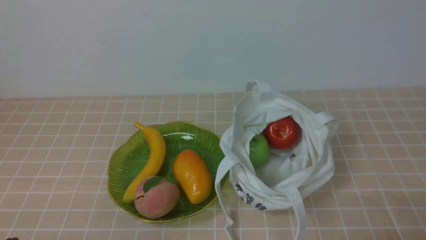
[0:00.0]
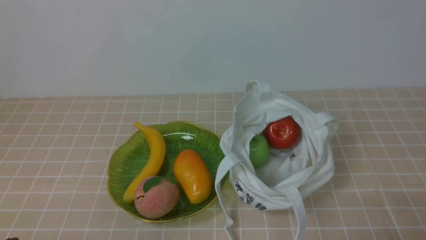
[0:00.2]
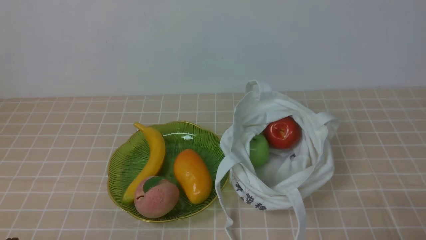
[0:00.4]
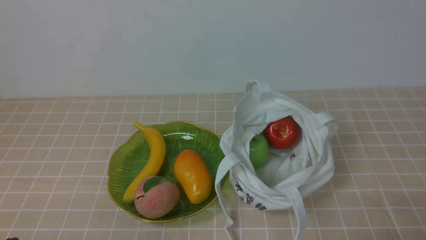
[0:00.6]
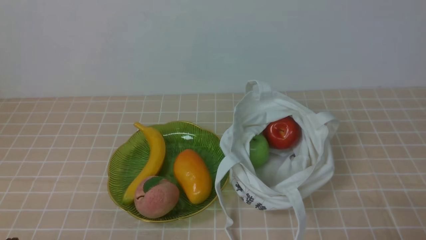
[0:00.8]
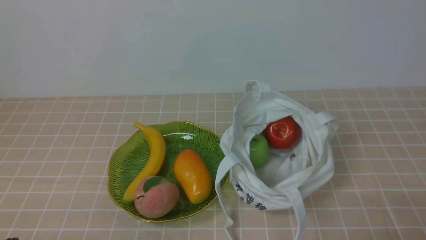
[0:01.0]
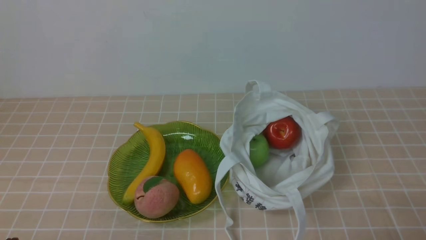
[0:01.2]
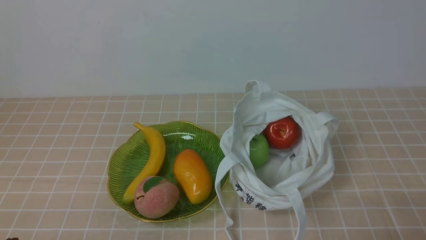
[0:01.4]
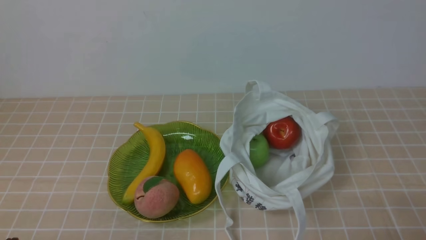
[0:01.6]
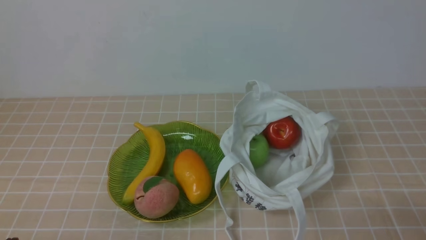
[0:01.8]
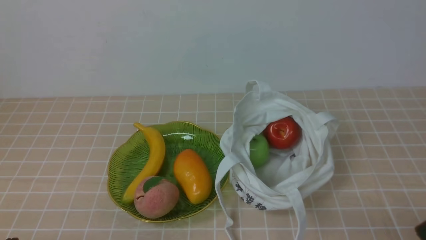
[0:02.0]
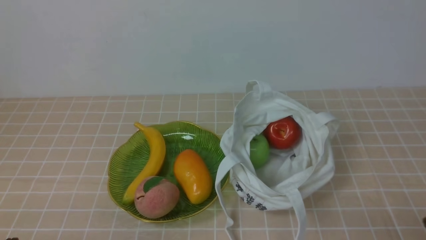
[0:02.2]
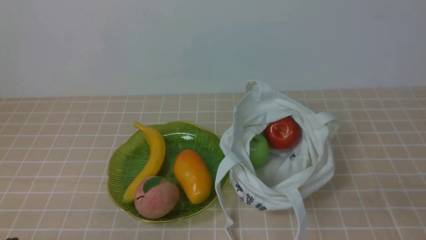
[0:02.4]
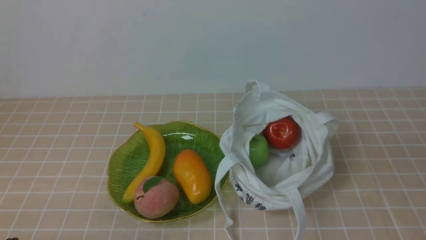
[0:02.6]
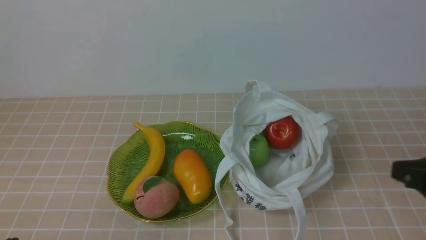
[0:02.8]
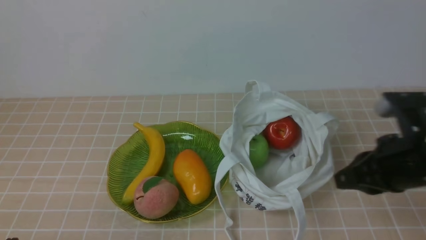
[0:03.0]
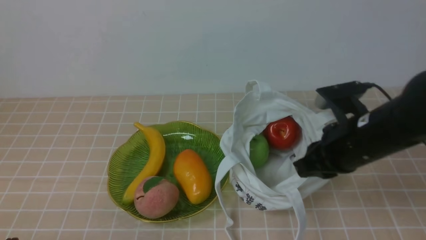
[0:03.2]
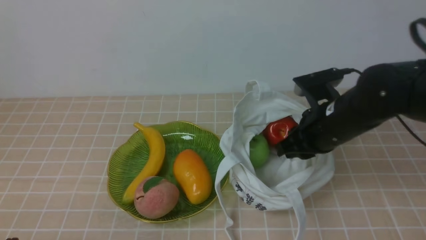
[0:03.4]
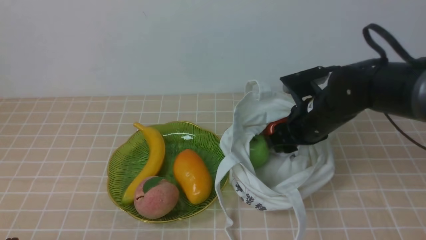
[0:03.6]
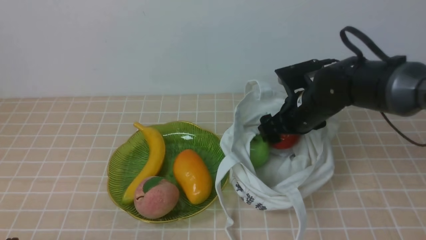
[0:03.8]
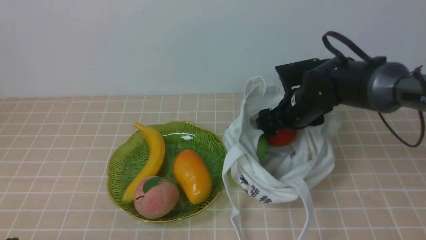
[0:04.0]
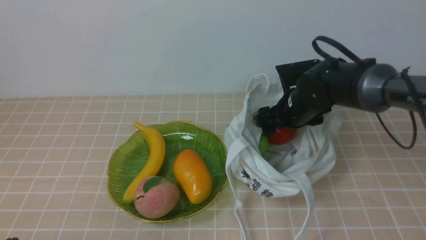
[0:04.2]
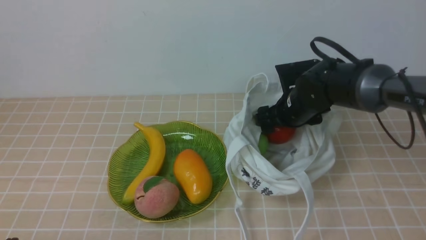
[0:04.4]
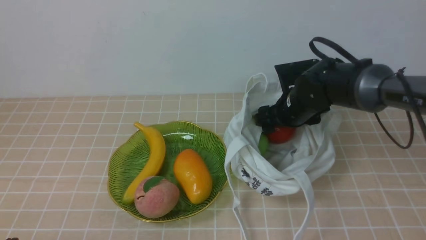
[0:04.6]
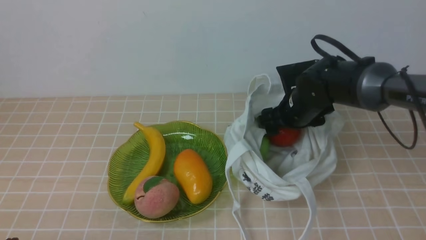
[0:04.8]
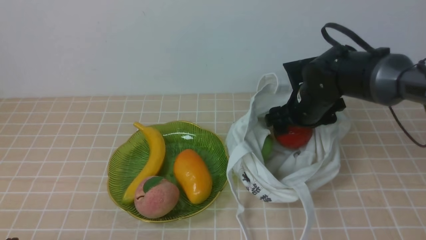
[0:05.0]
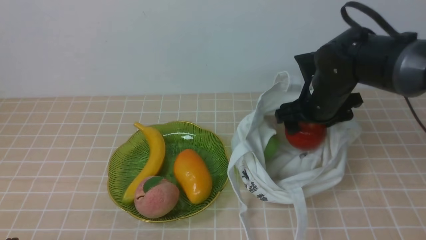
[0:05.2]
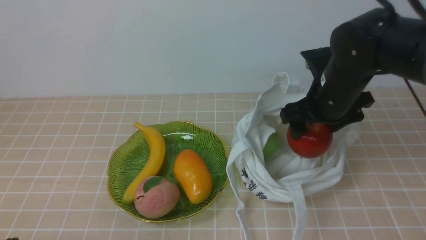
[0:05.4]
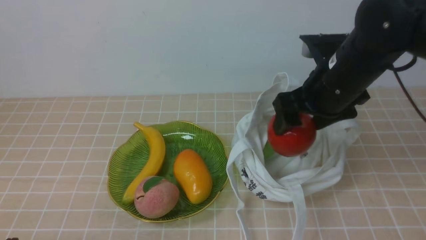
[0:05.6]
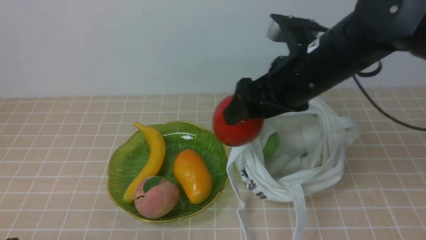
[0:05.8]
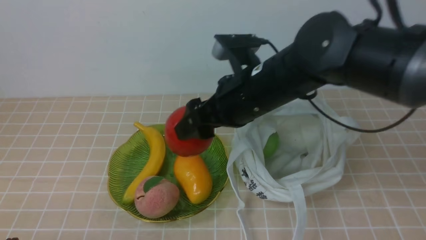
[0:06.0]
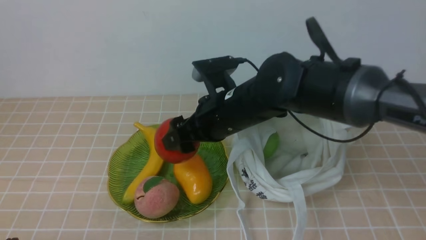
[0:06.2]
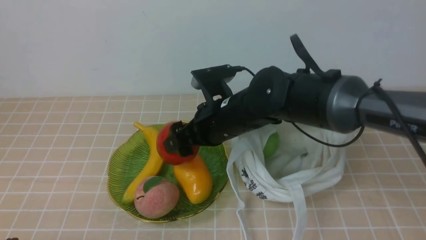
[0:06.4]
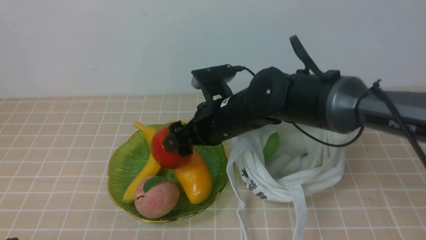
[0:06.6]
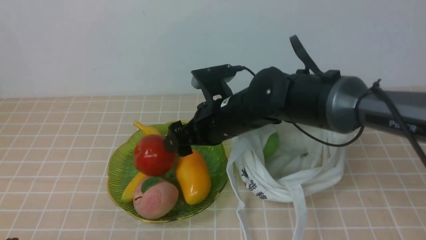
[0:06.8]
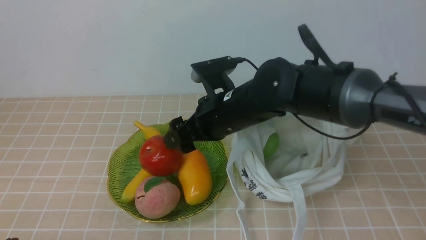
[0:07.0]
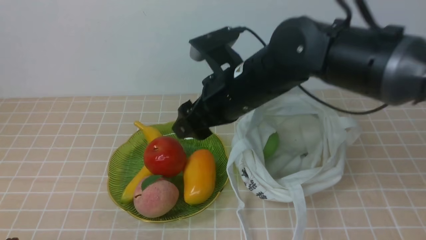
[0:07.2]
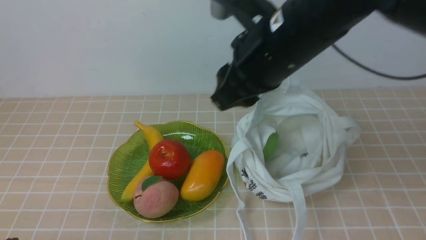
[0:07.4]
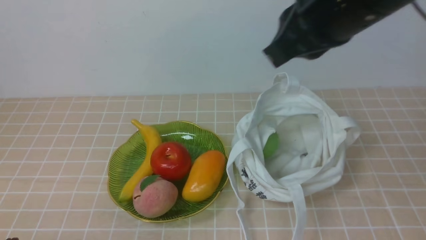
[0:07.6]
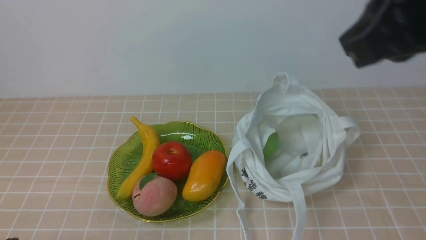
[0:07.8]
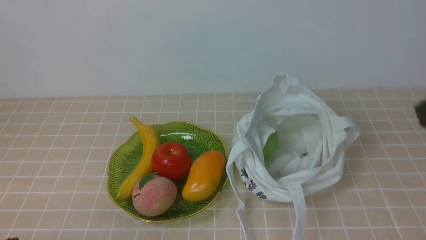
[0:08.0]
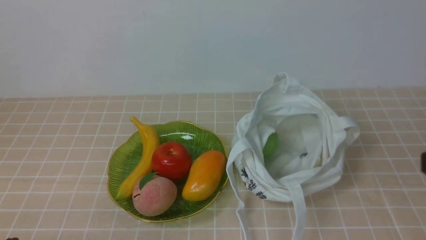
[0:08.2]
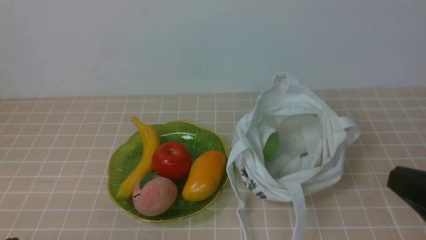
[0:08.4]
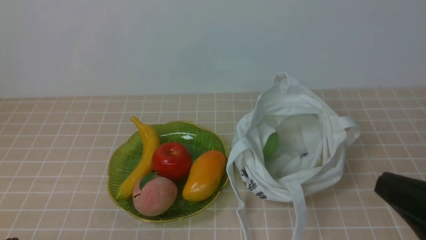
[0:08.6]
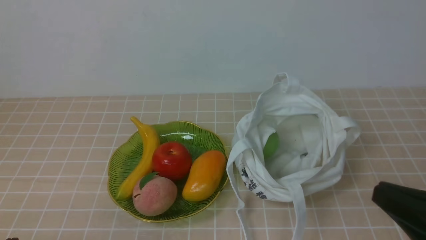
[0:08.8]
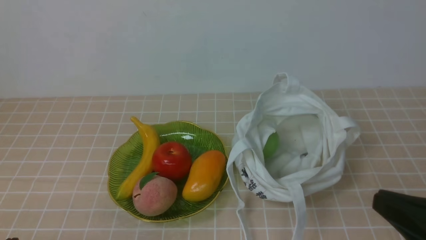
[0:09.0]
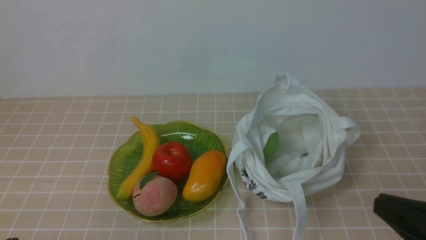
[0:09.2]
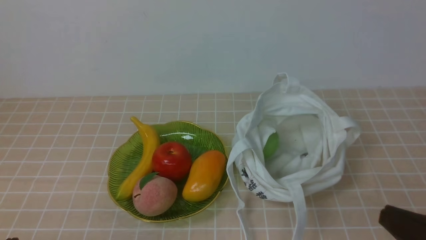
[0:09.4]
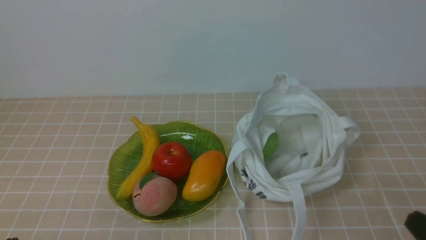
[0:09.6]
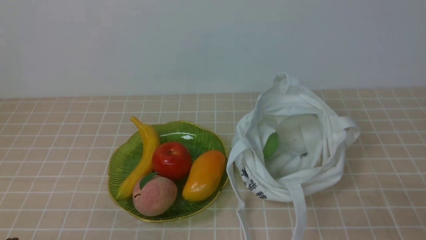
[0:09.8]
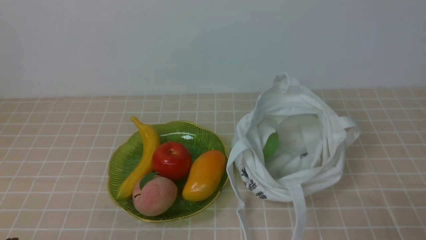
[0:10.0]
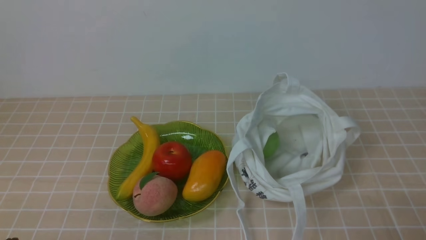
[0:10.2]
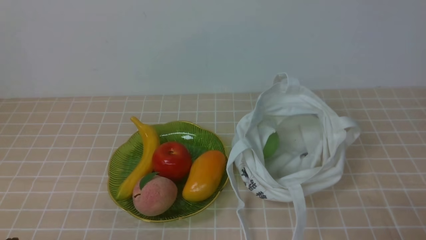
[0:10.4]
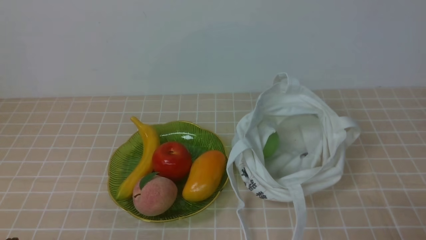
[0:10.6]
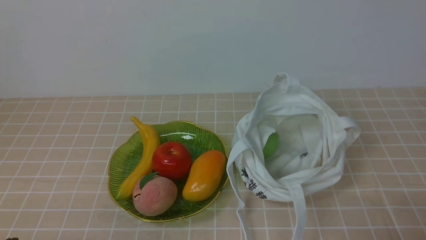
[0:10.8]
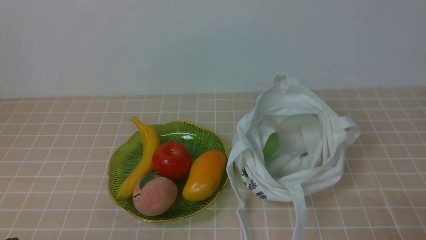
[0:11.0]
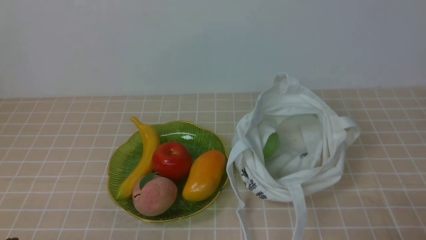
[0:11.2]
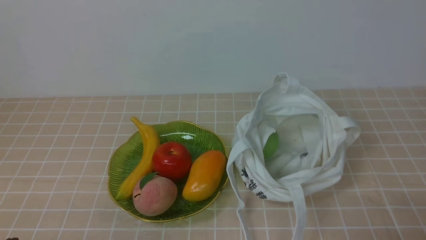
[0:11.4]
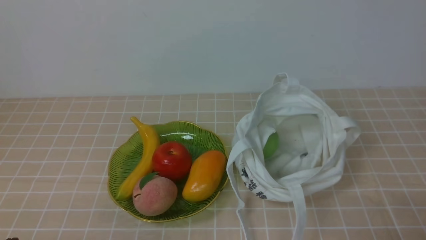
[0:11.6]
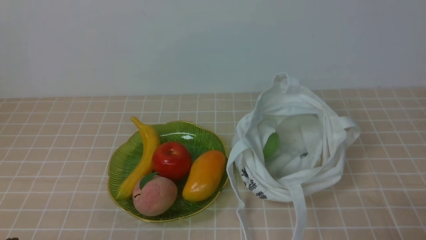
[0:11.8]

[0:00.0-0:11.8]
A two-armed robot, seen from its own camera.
Step, 0.0 to 5.4 s: use the right arm to grab an apple from the bag.
Step, 5.8 to 6.8 s: use the right arm to put the apple into the empty plate on the left.
1.4 to 3.0 s: The right gripper shifts some 20 cm forward, upward and to the left.
3.0 to 4.4 s: The right gripper moves forward, downward and to the left, roughly 25 cm, and opens.
4.4 to 6.0 s: The right gripper travels upward, backward and to the left by about 15 cm.
6.0 to 7.4 s: The right gripper heads upward, covering about 5 cm, and closes its fingers.
7.4 to 8.8 s: The right gripper goes roughly 30 cm backward and to the right, and closes.
8.8 to 10.4 s: The right gripper heads downward and to the right, covering about 10 cm.
10.4 to 11.8 s: Both grippers stay about where they are.

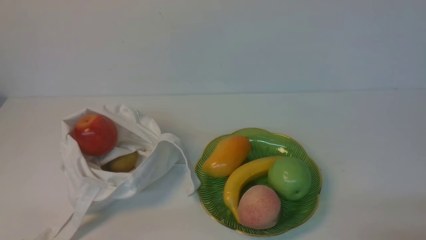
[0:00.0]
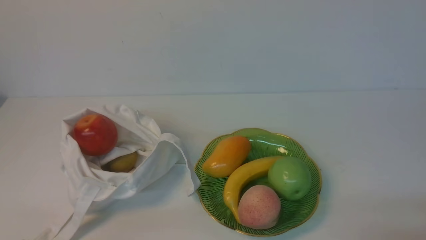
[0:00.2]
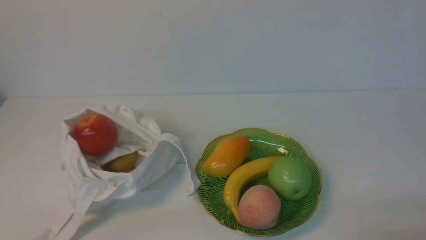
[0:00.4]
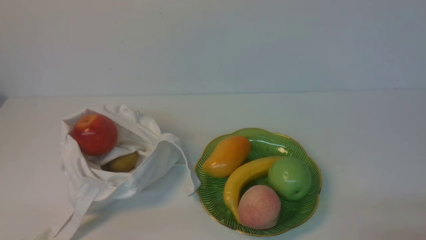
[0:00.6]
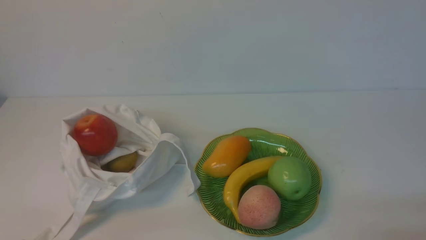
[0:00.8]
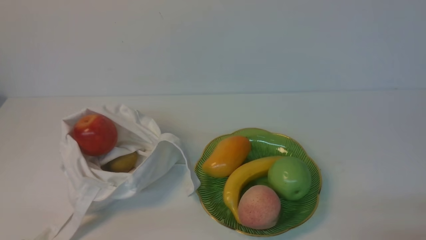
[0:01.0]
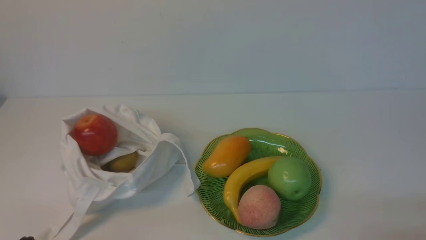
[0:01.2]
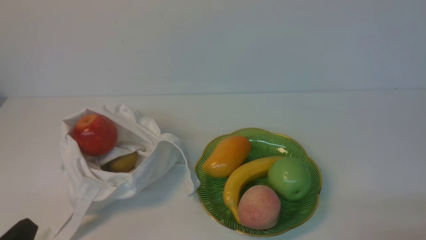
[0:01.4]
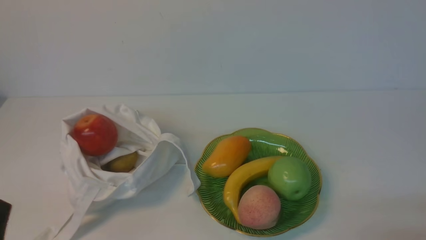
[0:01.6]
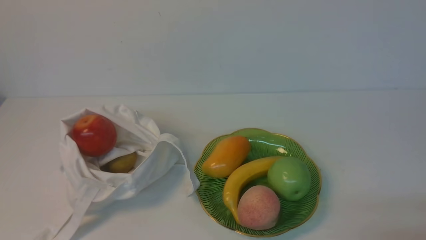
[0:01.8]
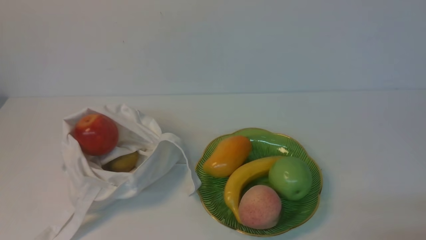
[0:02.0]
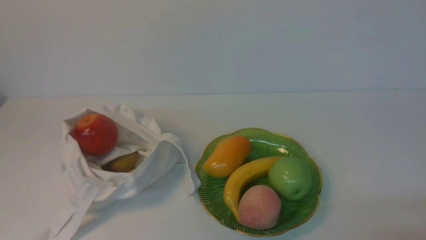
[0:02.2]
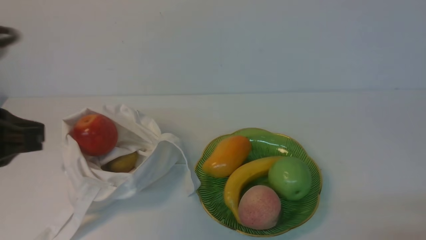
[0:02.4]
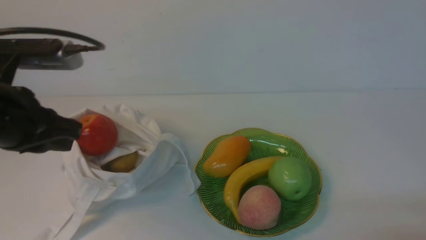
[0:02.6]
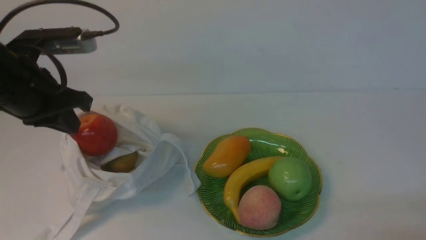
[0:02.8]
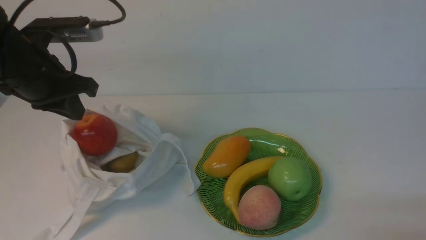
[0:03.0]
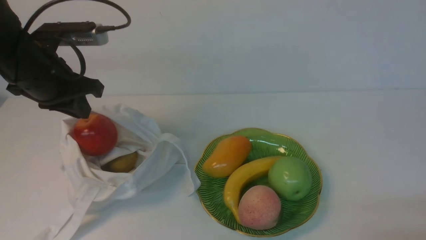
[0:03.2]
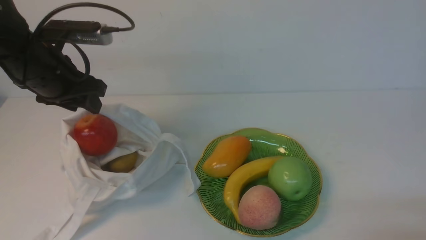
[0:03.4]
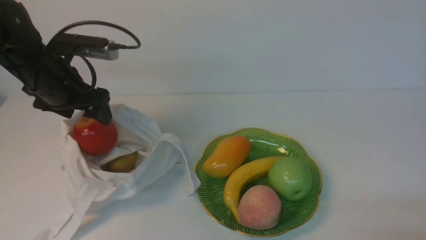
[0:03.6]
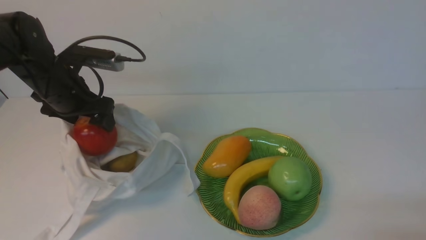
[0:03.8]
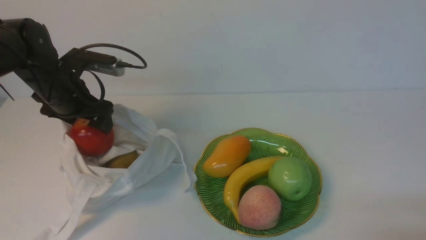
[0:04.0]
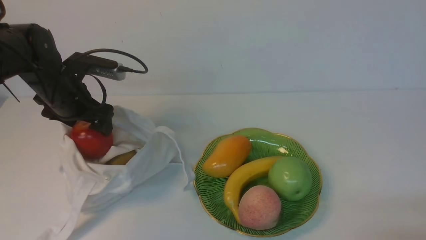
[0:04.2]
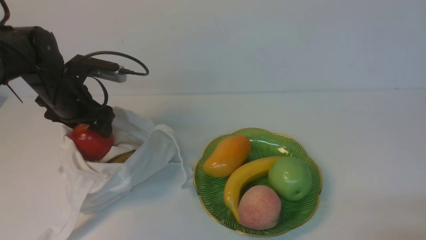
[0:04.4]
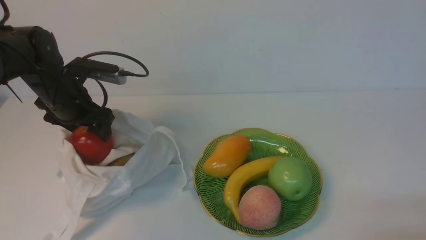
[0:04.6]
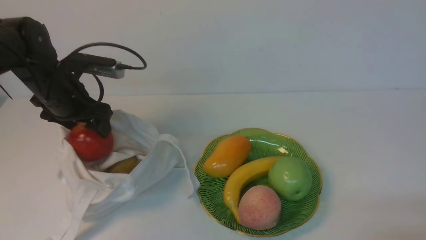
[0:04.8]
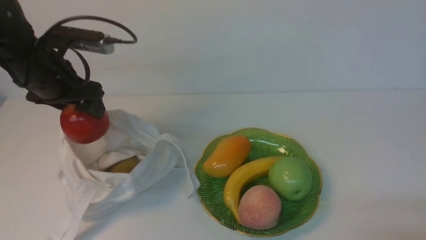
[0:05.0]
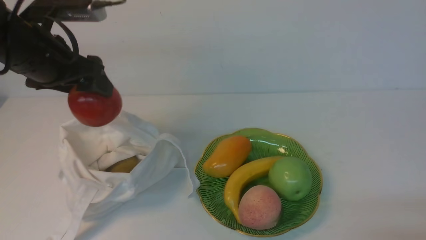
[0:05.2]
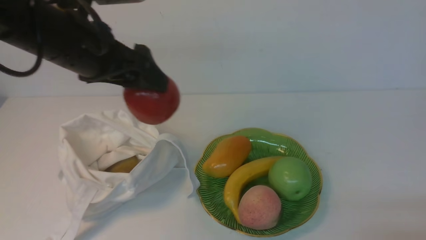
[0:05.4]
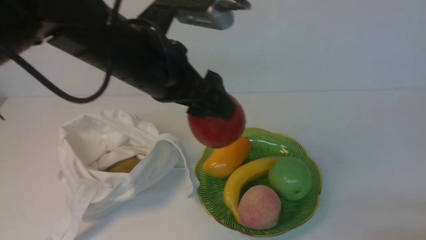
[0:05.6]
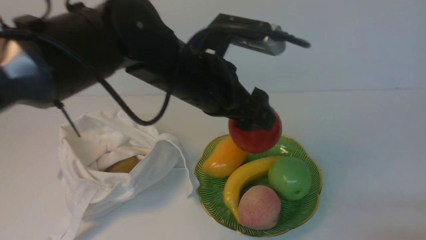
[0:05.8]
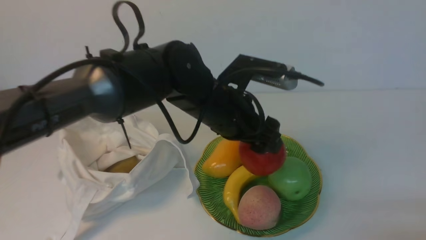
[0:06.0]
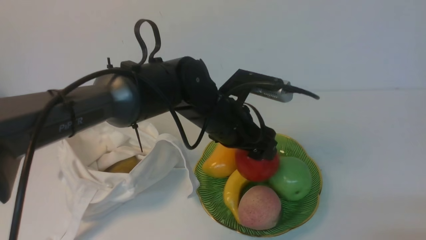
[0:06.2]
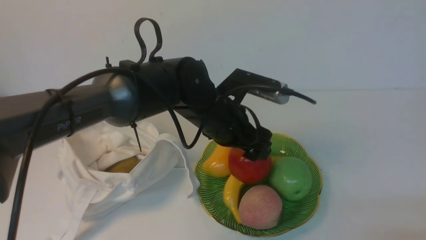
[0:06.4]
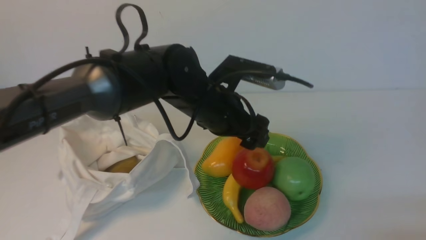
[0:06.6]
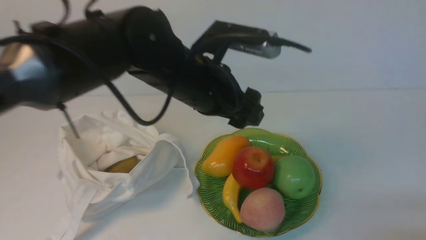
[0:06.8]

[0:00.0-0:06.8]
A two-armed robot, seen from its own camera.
Step, 0.0 to 4.8 s: use the left arm to grab an apple from the bag.
Step, 5.0 to 6.8 s: use the left arm to put the apple into the empty plate on the right.
1.4 to 2.8 s: The left gripper heads forward and upward, covering approximately 25 cm.
2.8 to 4.0 s: The left gripper heads forward and downward, covering approximately 15 cm, and opens its fingers.
4.0 to 5.4 s: The left gripper shifts approximately 15 cm upward, to the right and backward.
5.4 to 6.8 s: The left gripper shifts about 10 cm to the right.
